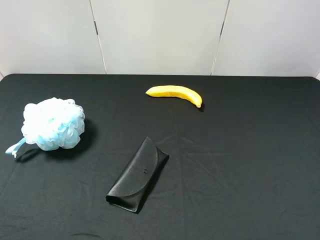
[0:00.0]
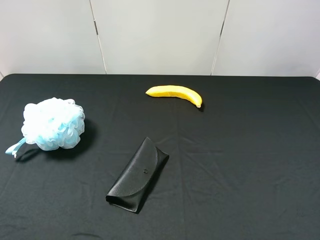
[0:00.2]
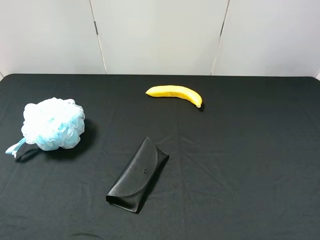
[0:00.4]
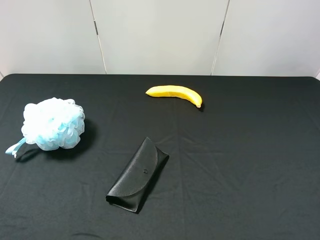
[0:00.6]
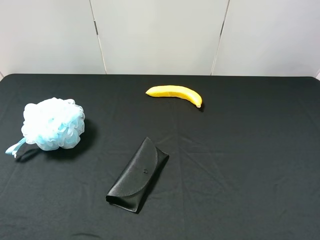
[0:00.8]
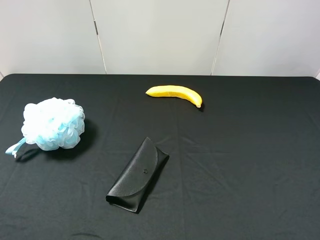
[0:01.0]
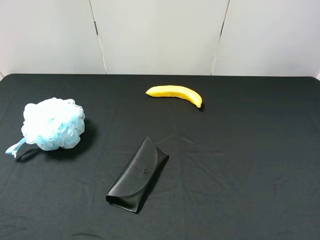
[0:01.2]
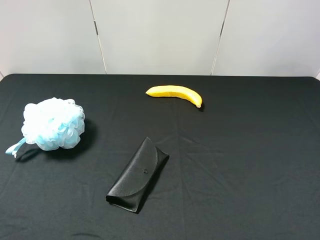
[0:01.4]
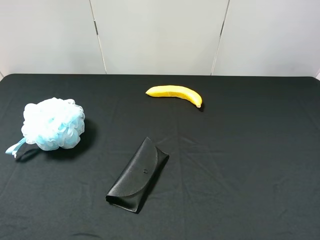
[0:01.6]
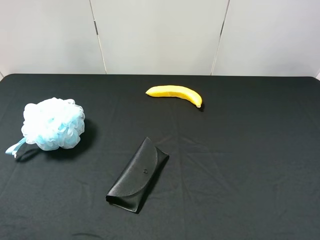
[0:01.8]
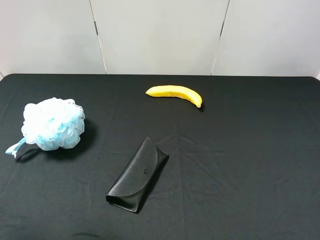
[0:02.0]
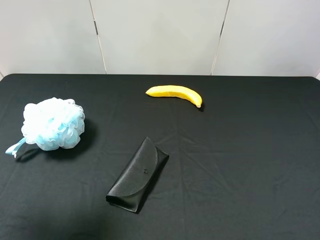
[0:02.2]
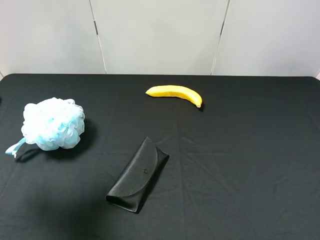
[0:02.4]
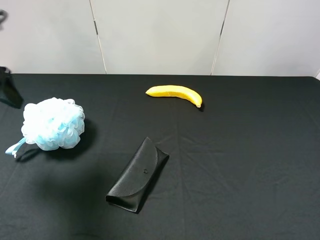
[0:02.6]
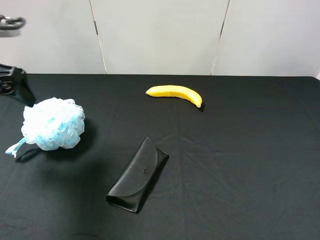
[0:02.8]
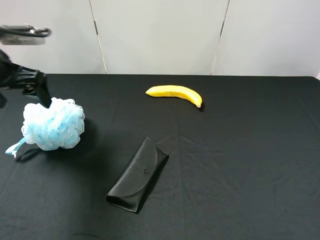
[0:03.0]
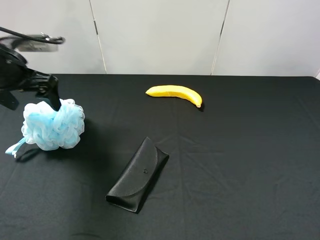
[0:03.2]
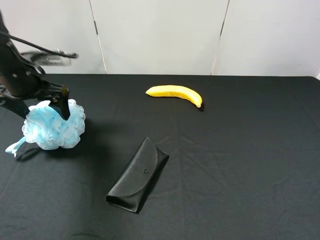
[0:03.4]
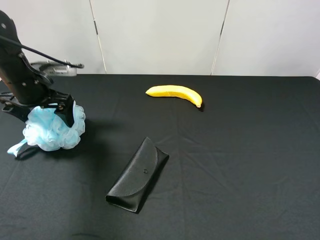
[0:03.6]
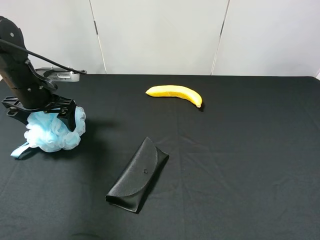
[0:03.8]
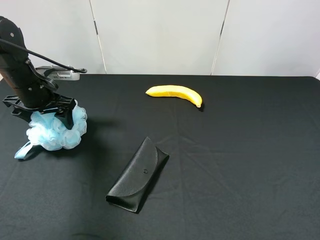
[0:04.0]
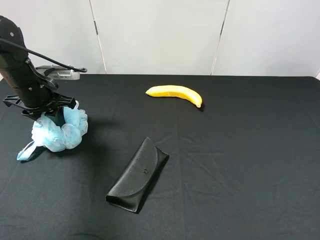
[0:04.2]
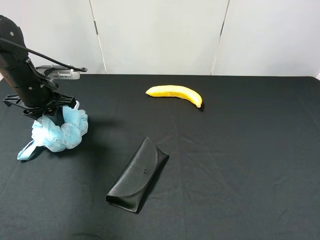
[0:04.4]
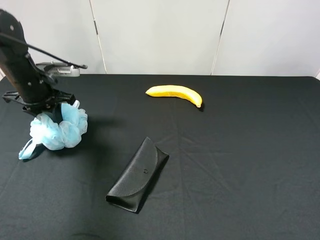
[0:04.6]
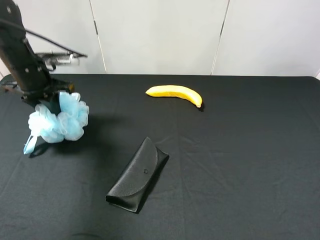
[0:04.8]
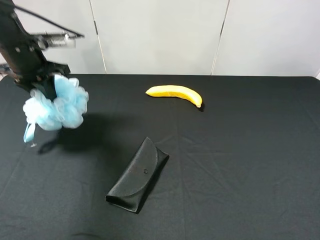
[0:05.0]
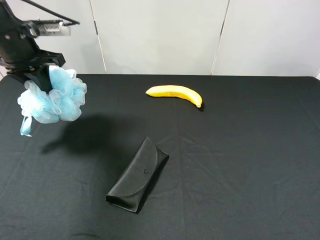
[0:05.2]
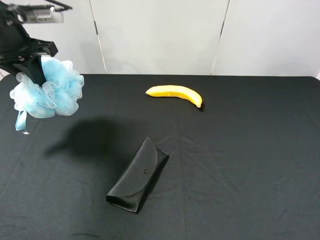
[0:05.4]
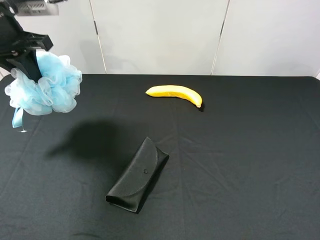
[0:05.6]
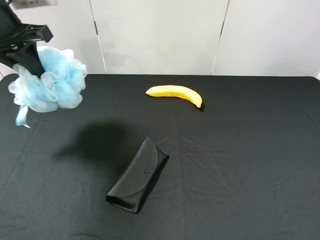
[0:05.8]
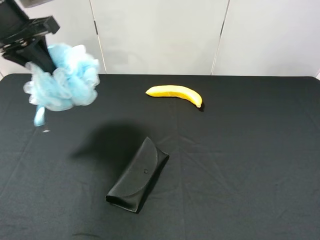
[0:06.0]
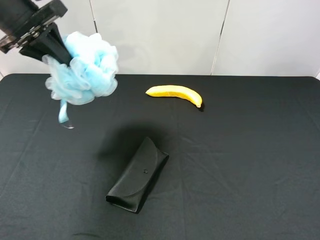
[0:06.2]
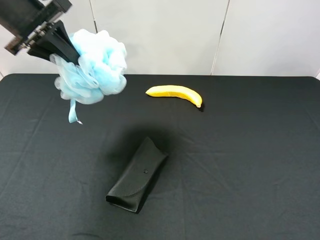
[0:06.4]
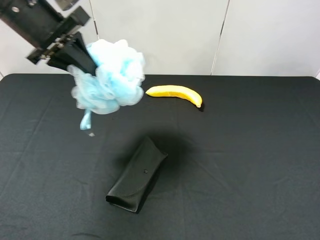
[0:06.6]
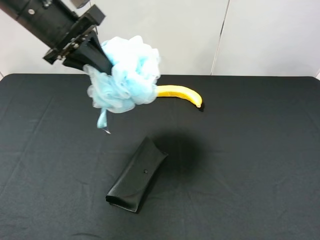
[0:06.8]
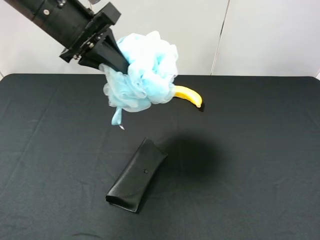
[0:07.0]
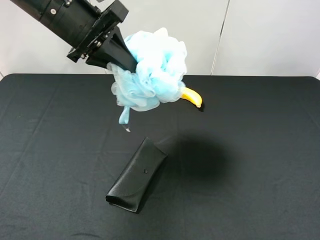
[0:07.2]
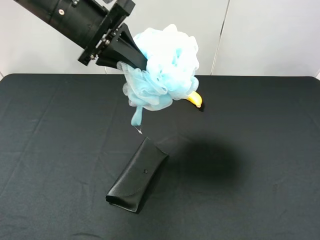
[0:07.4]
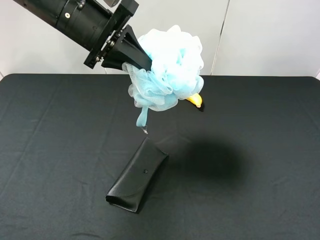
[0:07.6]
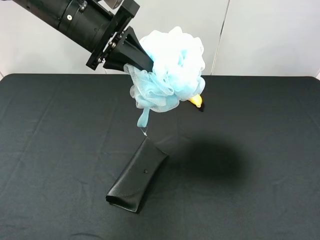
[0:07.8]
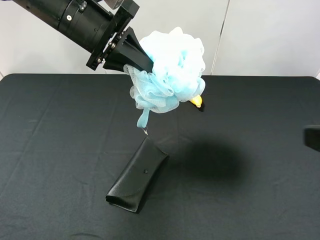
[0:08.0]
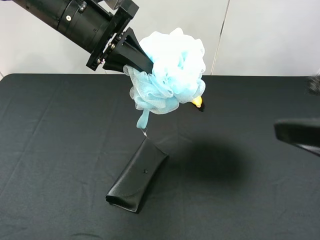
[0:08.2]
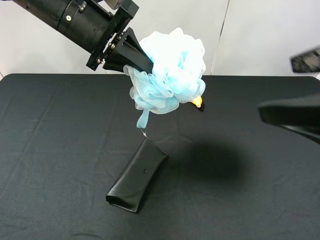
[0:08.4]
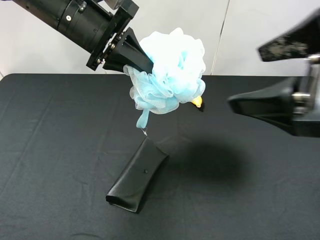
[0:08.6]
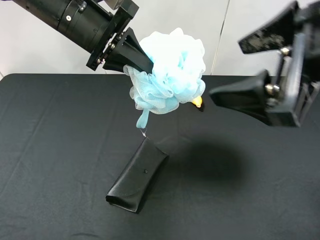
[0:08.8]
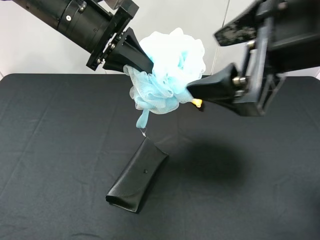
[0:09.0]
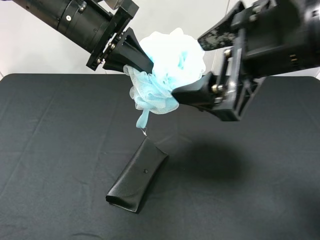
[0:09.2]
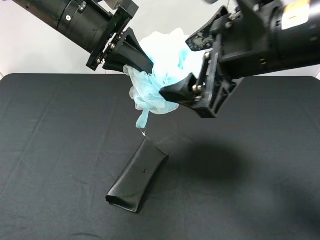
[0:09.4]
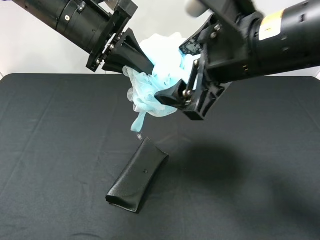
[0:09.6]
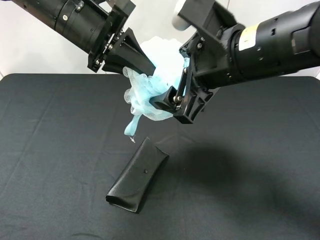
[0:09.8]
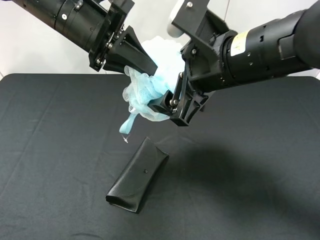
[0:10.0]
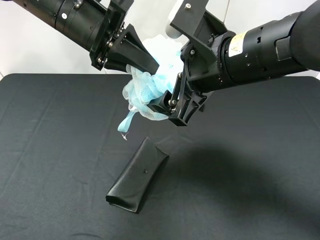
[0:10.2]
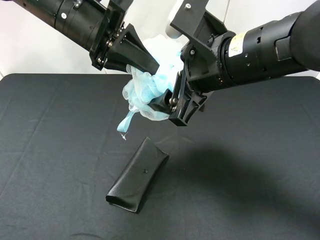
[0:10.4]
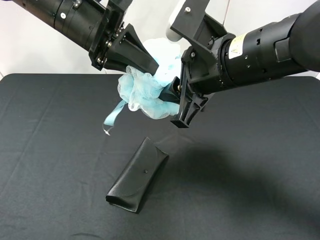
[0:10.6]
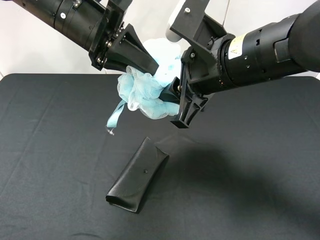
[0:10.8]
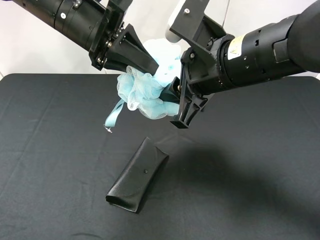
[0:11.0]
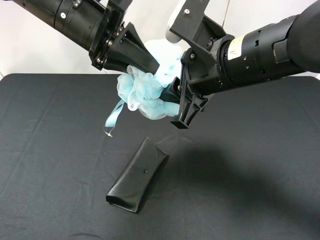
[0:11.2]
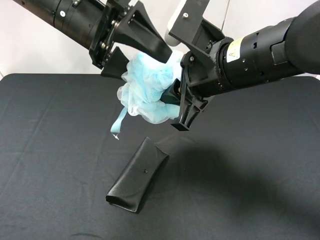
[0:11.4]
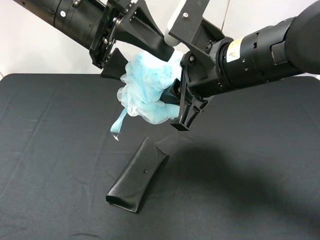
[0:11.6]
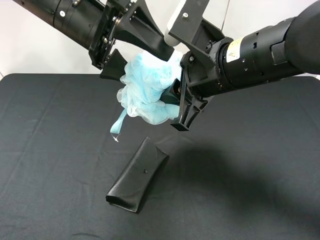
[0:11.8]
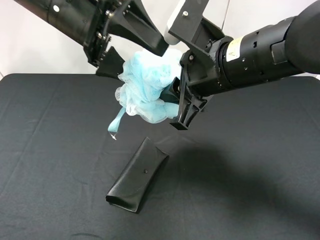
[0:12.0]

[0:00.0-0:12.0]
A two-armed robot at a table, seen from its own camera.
Task of the whole recording: use the left gripper to pick up the item and transfer it from the left gripper to the right gripper.
0:01.6 to 0:03.0: The left gripper is displaced forward by about 30 cm.
0:03.0 to 0:04.4: The left gripper goes about 10 cm downward, and closes up.
0:04.4 to 0:06.0: The left gripper travels upward by roughly 15 cm.
0:06.0 to 0:07.6: The left gripper moves to the right, about 15 cm.
0:07.6 to 0:09.0: The right gripper travels forward and to the left by roughly 20 cm.
0:09.0 to 0:10.4: The right gripper travels downward, to the left and forward by roughly 10 cm.
0:10.4 to 0:12.0: The left gripper opens its fingers. Meanwhile the right gripper closes.

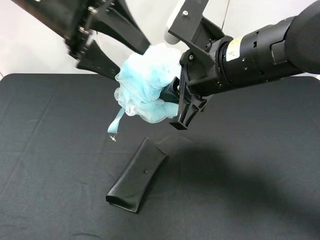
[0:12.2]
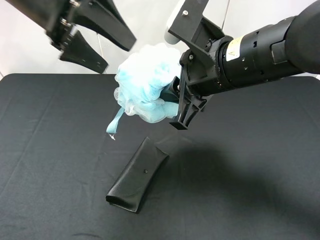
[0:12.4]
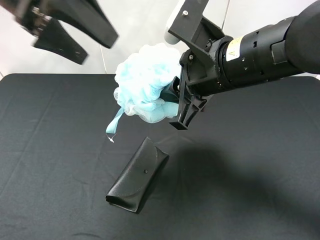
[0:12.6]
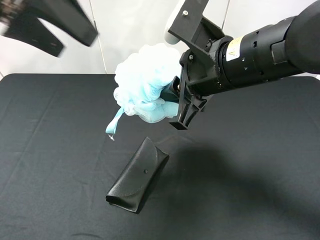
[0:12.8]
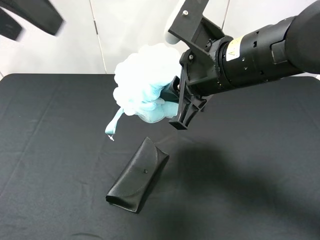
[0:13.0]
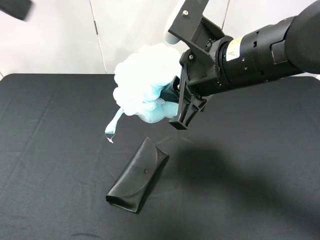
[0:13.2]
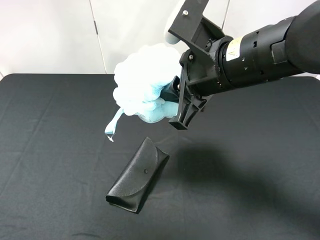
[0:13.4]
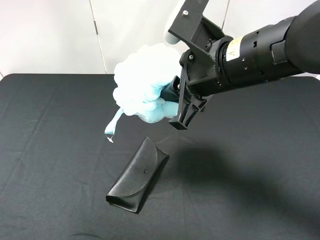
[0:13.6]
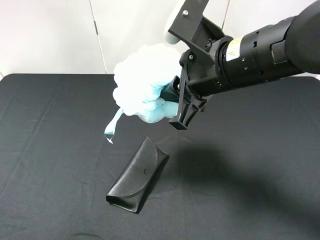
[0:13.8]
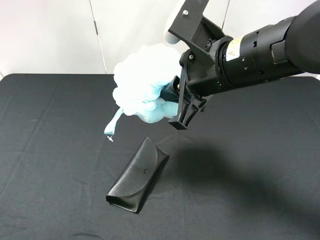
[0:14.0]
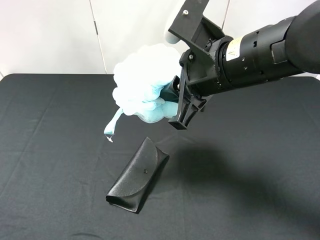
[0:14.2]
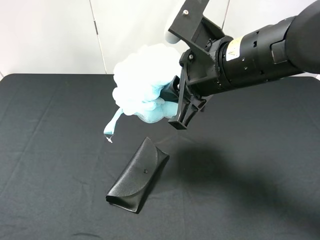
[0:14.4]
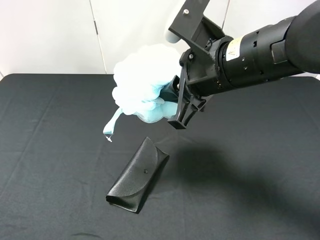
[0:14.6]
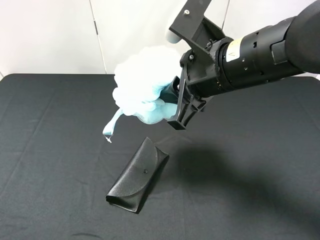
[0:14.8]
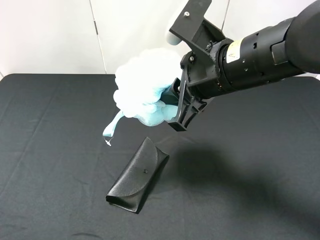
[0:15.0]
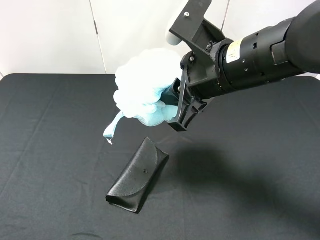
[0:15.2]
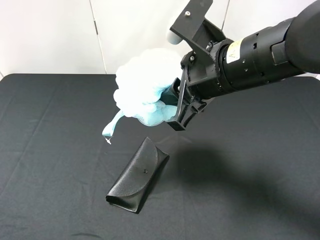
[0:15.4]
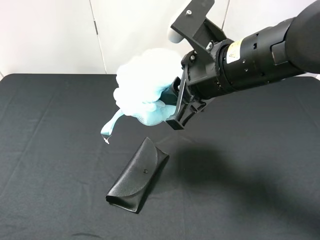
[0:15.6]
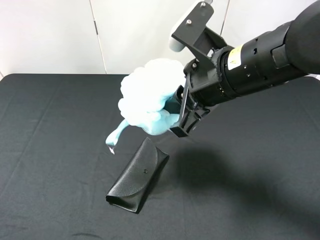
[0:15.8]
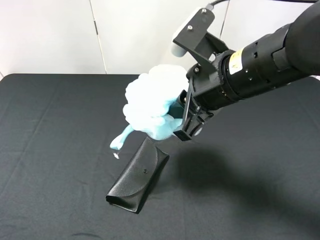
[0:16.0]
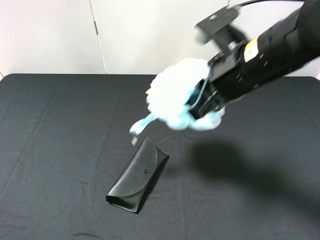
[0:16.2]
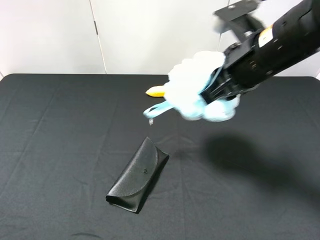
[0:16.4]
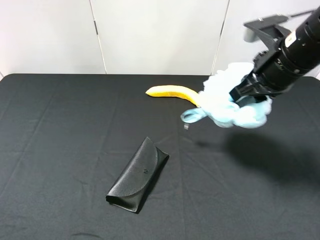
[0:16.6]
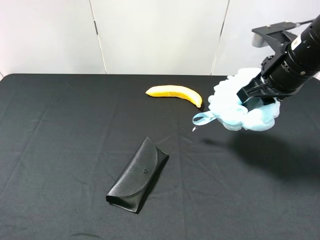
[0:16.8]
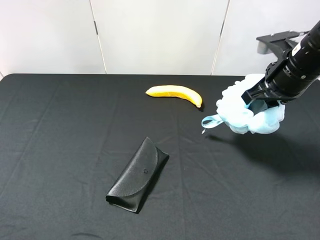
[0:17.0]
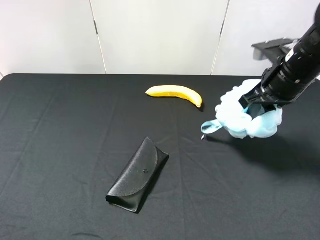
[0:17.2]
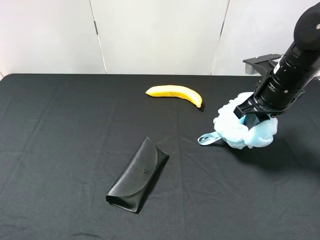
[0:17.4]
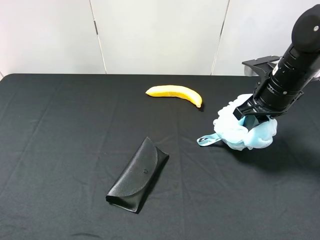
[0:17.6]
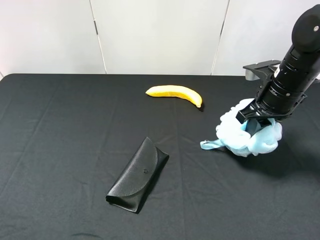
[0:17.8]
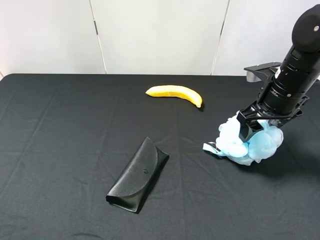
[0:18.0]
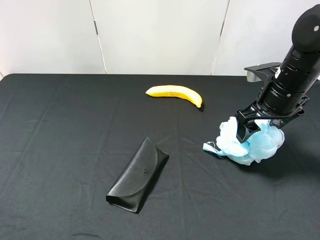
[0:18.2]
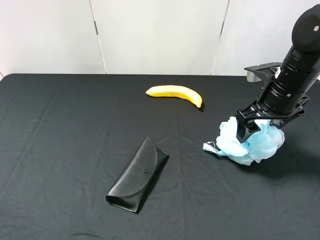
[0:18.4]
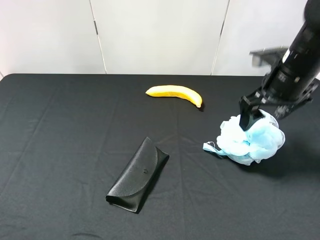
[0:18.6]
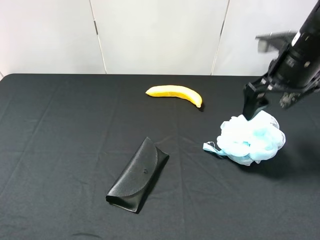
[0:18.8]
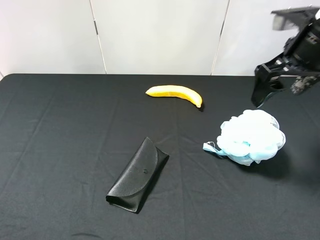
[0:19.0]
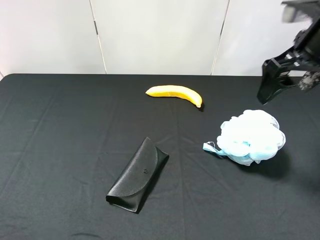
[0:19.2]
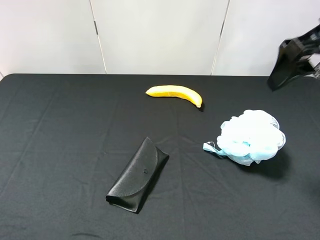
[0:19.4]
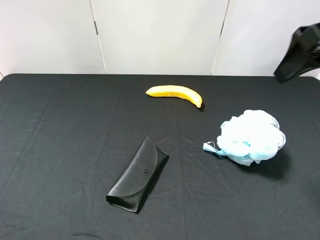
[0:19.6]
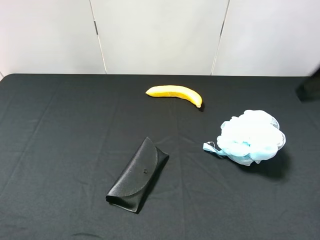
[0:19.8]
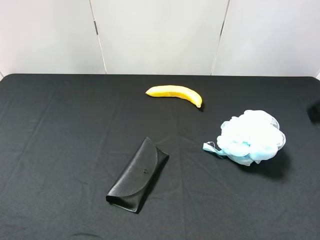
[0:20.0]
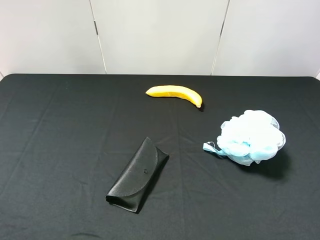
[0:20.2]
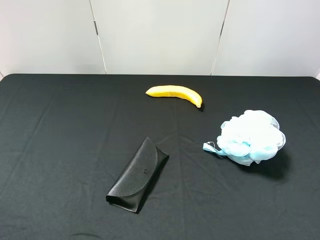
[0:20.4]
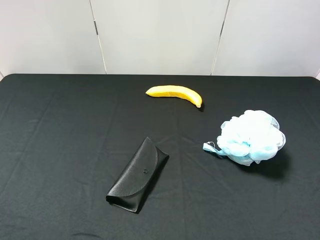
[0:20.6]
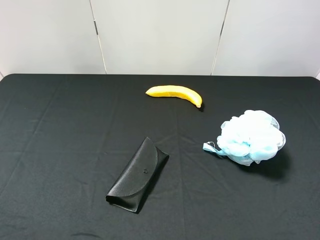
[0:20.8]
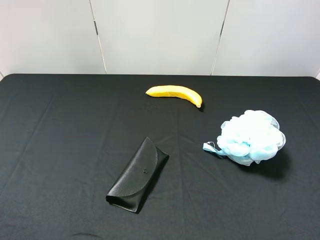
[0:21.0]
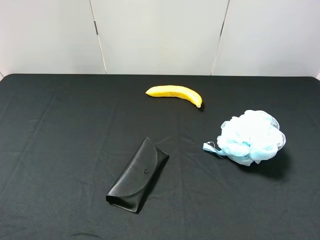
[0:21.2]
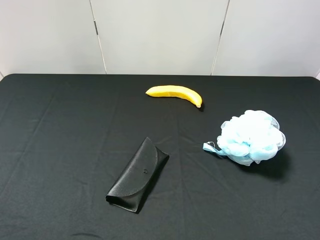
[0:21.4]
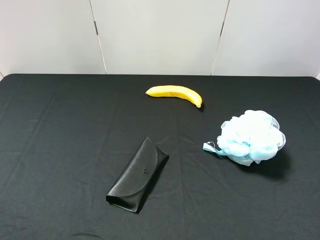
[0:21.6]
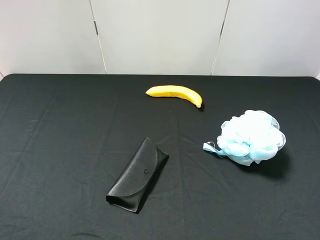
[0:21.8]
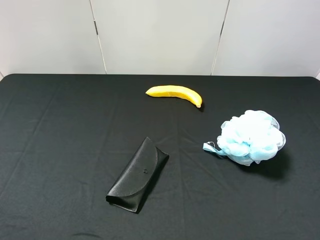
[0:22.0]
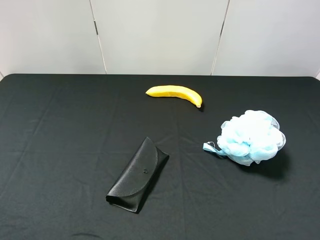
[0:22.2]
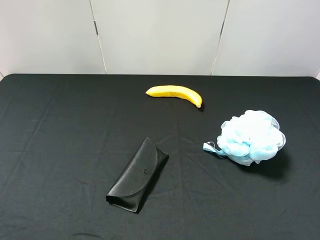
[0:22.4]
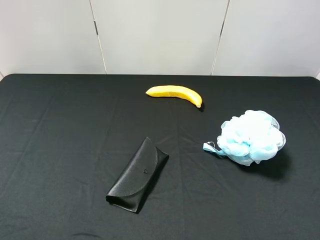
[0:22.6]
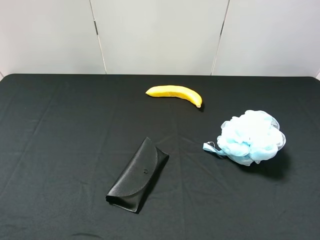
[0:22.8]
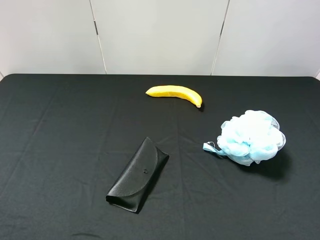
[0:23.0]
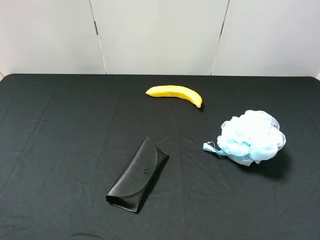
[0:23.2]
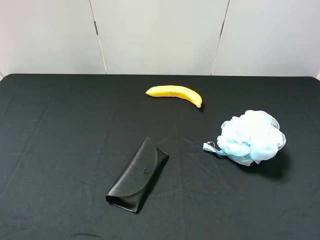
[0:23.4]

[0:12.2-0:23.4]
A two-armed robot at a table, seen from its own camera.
Task of the whole recording: use the left gripper to pick up the item and transfer it from the left gripper to the right gripper.
0:12.2 to 0:13.8: The left gripper goes approximately 30 cm backward, to the left and upward.
0:13.8 to 0:15.4: The left gripper is displaced downward and backward by approximately 15 cm.
0:15.4 to 0:17.0: The right gripper travels to the right and forward by about 15 cm.
0:17.0 to 0:18.6: The right gripper opens up.
0:18.6 to 0:20.2: The right gripper goes some 25 cm backward.
